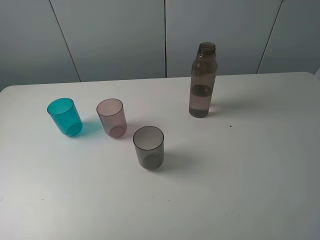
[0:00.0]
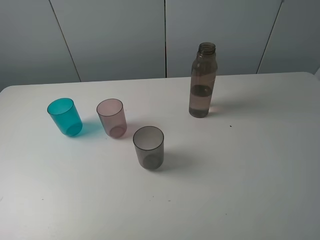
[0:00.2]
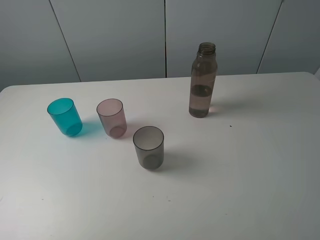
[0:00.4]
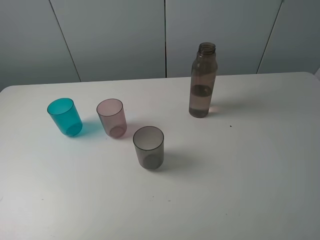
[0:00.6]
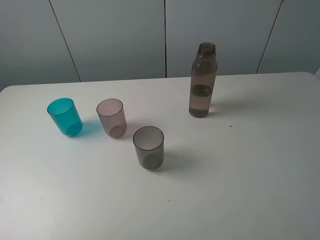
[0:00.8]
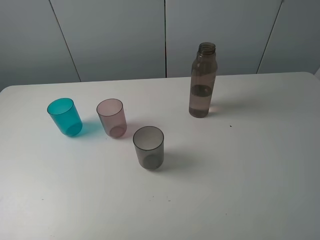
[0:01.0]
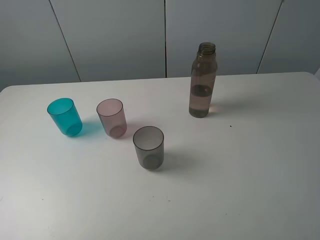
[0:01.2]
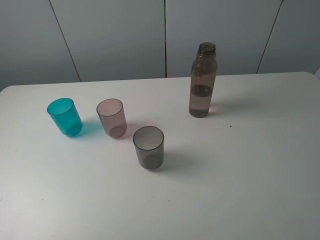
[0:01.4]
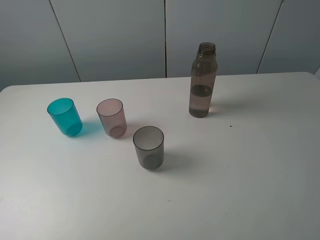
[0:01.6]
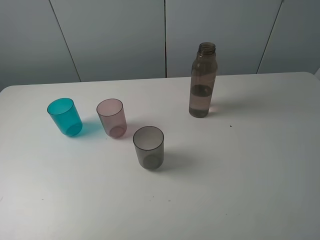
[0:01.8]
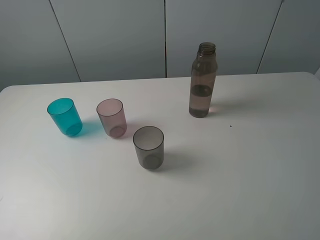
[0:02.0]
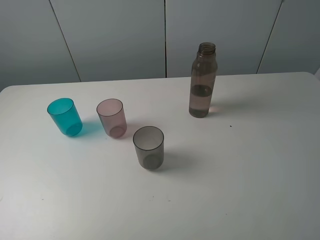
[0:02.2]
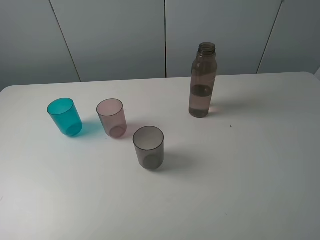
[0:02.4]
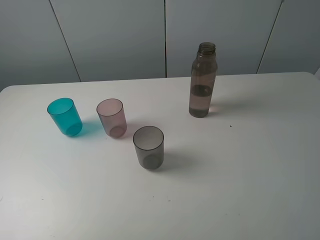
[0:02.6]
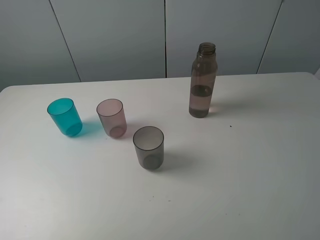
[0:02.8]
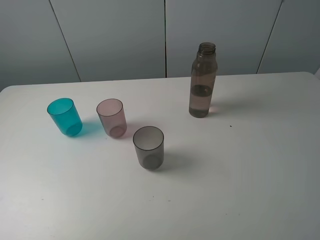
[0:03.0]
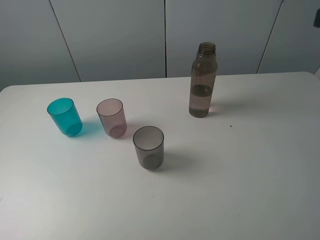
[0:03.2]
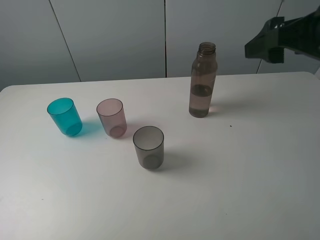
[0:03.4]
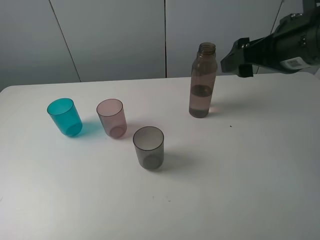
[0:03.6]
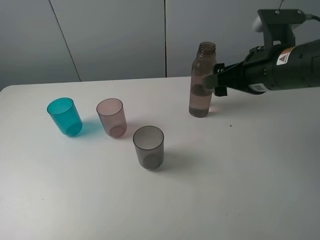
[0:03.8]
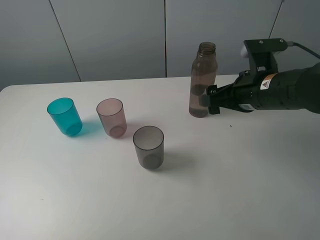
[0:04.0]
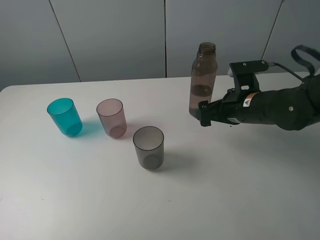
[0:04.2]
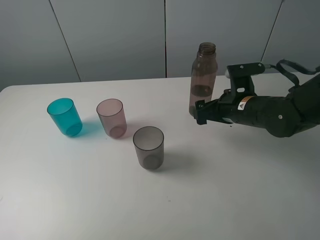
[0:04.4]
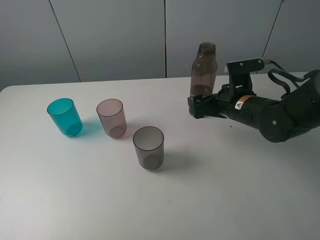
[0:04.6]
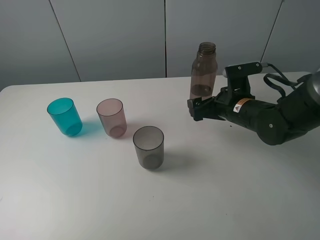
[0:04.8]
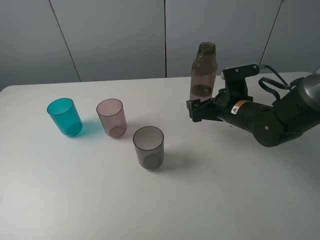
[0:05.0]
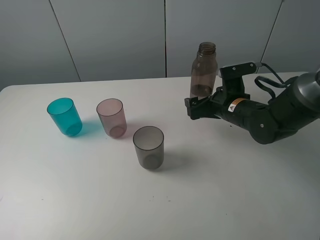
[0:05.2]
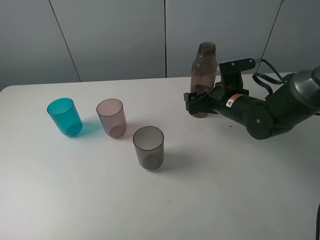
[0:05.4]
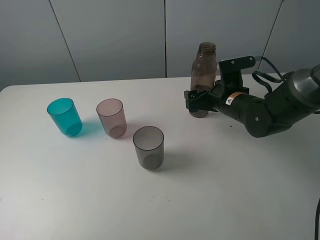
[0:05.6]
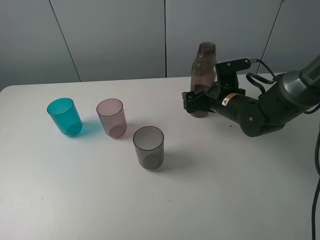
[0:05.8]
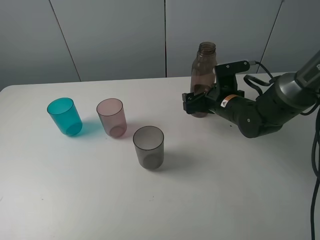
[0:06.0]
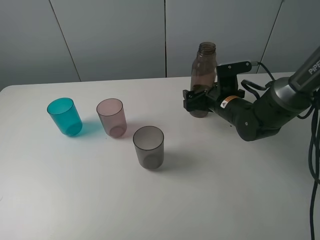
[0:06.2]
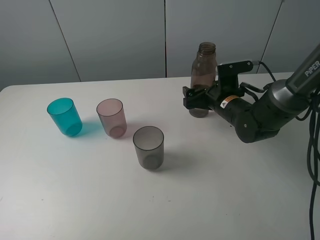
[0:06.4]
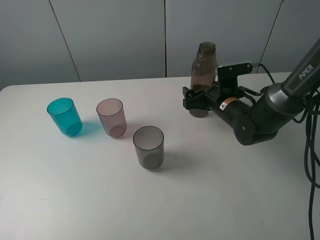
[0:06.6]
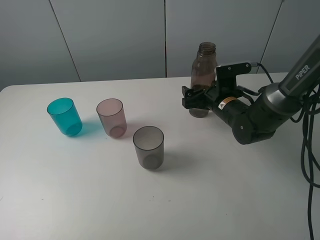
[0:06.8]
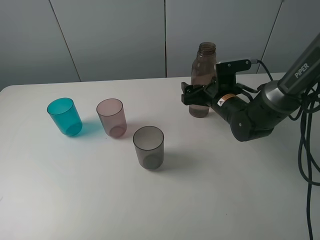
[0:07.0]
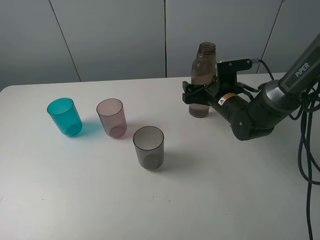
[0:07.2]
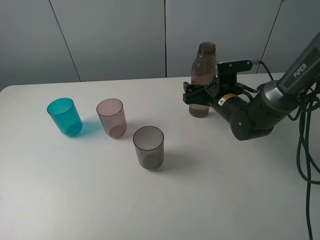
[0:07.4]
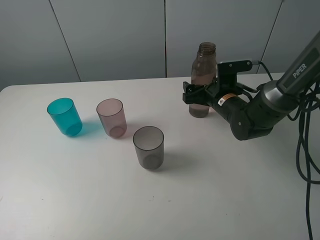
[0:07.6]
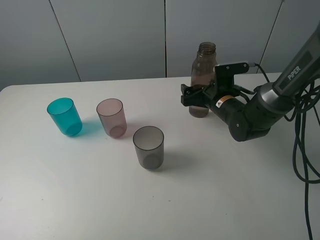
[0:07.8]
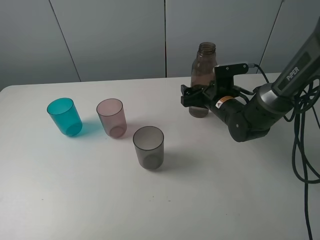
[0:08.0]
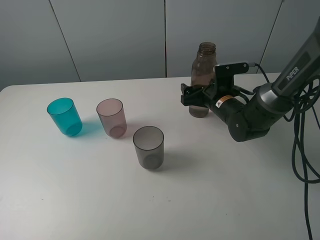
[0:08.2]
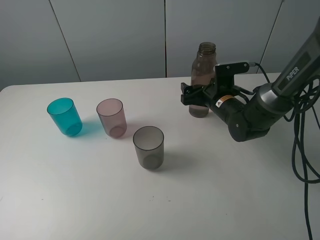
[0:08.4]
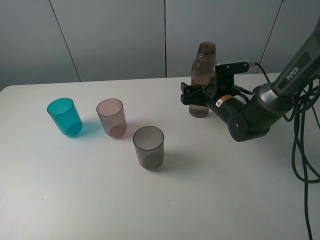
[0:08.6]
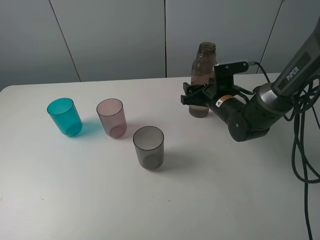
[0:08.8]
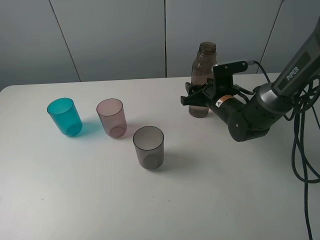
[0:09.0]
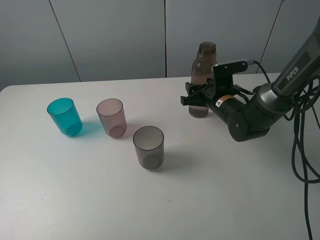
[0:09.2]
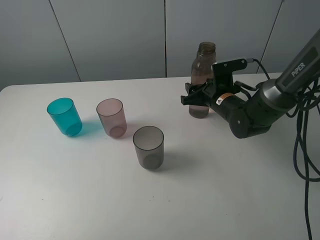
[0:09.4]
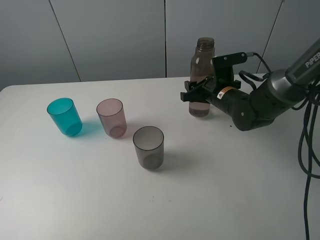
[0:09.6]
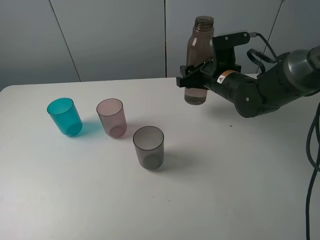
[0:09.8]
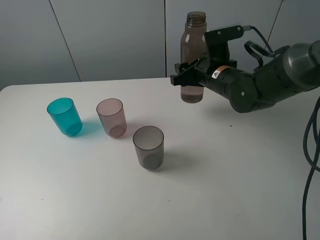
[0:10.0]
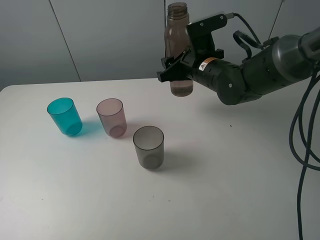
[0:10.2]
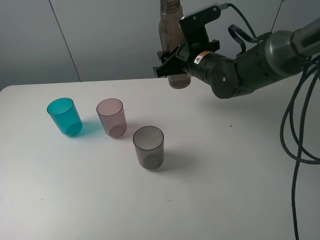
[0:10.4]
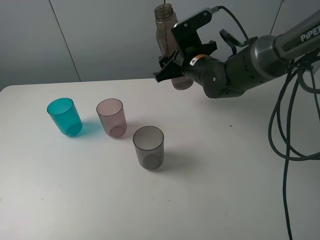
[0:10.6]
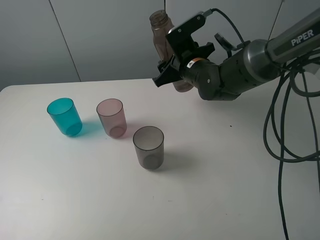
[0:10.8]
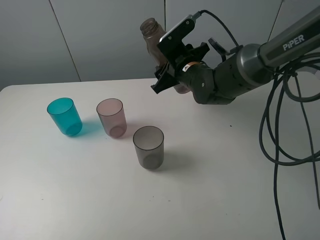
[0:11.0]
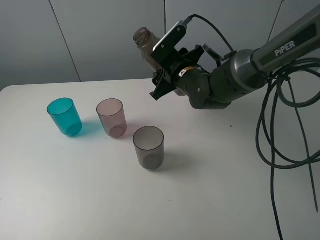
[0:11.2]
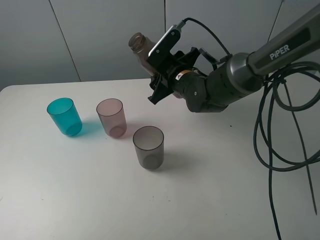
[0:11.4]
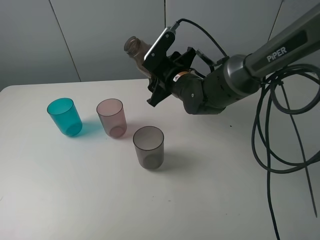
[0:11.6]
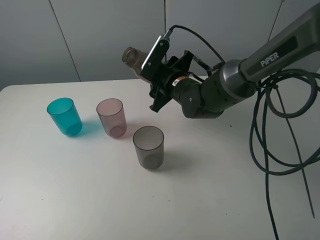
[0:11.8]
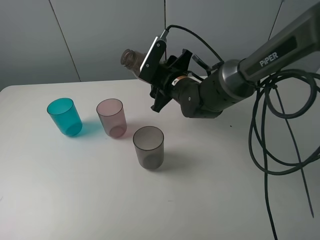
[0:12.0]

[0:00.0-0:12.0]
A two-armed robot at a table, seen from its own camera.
Task of the whole recording: pick up the bottle filled with water and pour water into the middle cup of the three cups.
Step, 0:00.0 to 0:08.8: Grasp the brown bottle with the right gripper.
0:00.0 to 0:01.6: Neither gripper changes place.
0:03.0 to 0:04.4: The right gripper goes about 30 cm downward, forward and to the left.
0:04.4 to 0:06.0: The right gripper moves about 5 cm.
0:06.0 to 0:07.6: The grippers stay close to where they were, moving slightly.
0:07.6 to 0:09.0: The right gripper closes.
0:09.0 to 0:10.4: The right gripper travels upward and to the left by about 10 cm.
0:10.4 to 0:12.0: The right gripper changes place by roughly 5 cm.

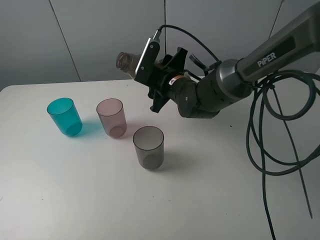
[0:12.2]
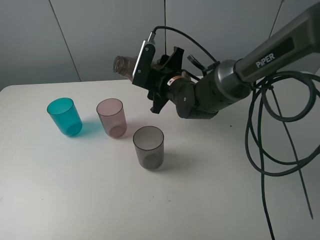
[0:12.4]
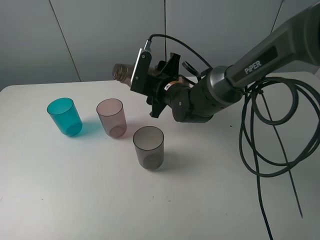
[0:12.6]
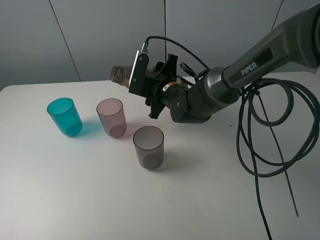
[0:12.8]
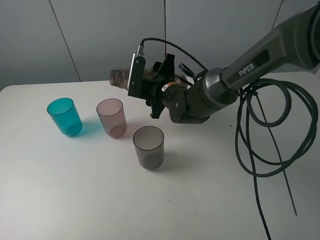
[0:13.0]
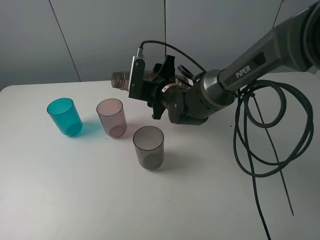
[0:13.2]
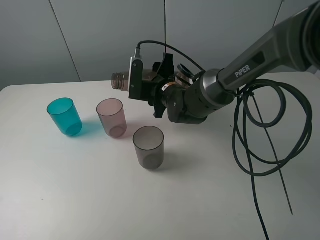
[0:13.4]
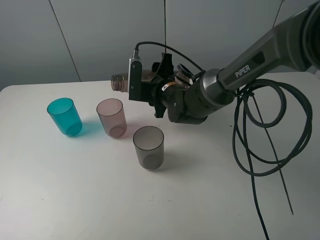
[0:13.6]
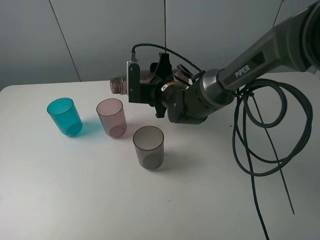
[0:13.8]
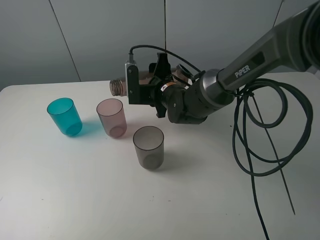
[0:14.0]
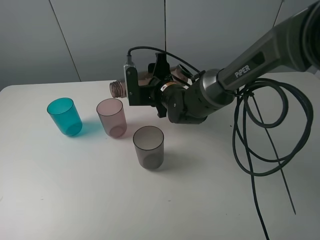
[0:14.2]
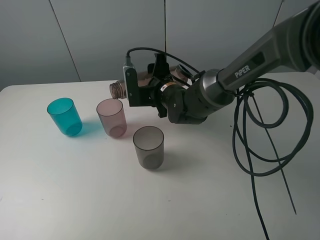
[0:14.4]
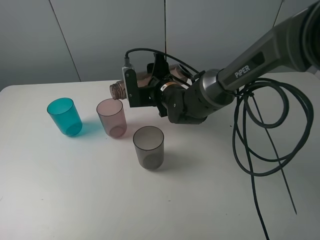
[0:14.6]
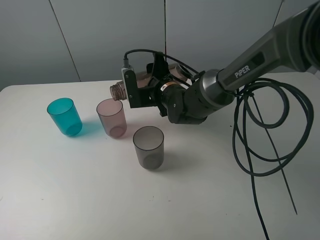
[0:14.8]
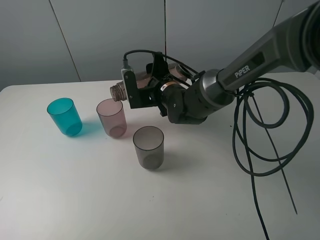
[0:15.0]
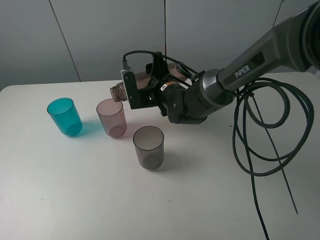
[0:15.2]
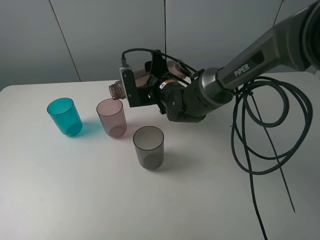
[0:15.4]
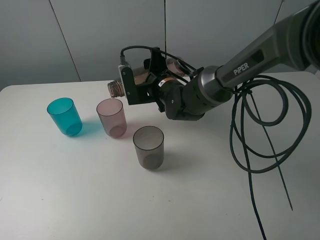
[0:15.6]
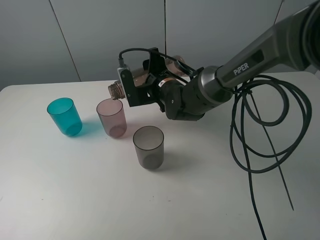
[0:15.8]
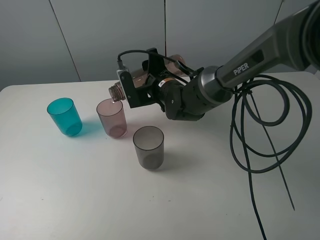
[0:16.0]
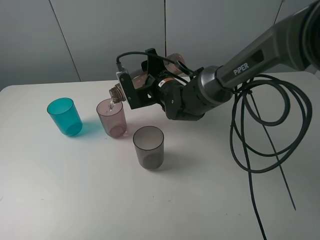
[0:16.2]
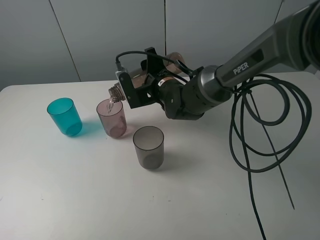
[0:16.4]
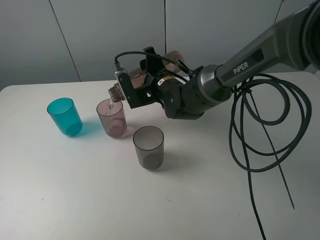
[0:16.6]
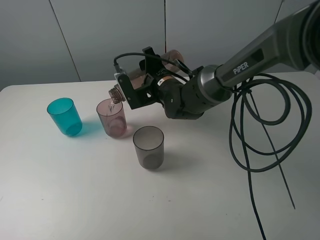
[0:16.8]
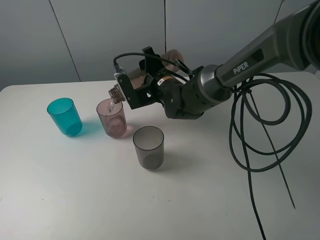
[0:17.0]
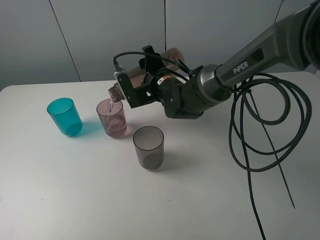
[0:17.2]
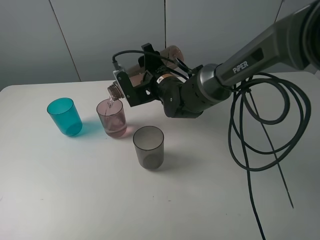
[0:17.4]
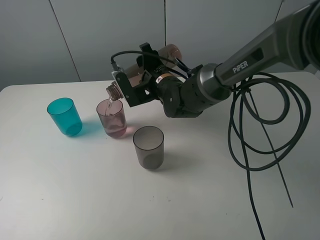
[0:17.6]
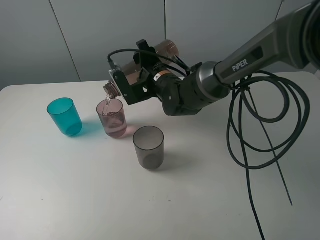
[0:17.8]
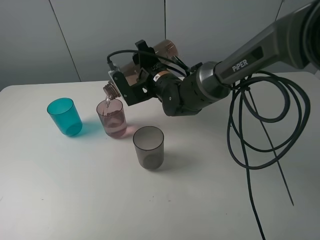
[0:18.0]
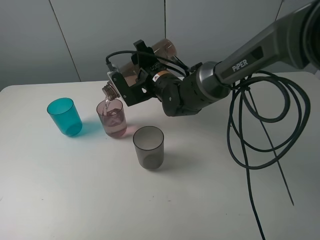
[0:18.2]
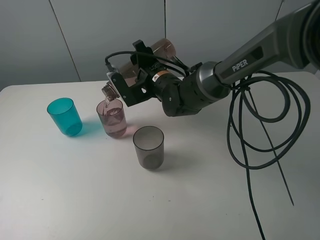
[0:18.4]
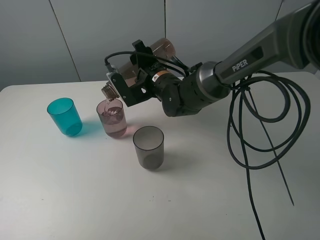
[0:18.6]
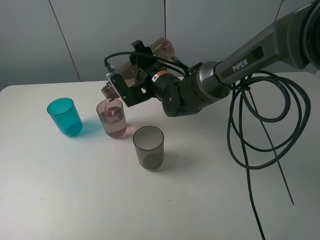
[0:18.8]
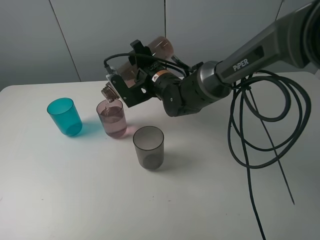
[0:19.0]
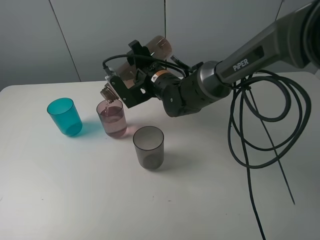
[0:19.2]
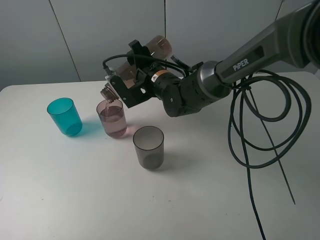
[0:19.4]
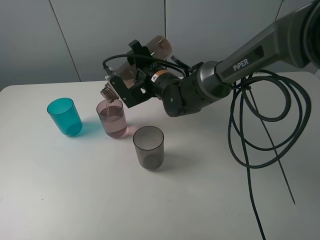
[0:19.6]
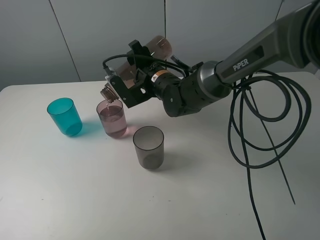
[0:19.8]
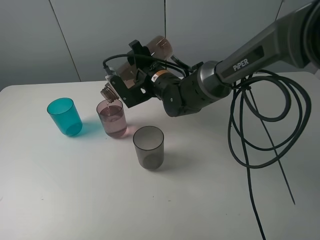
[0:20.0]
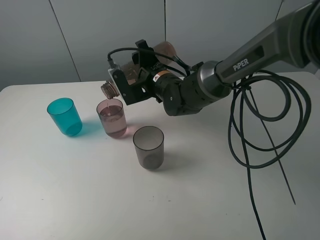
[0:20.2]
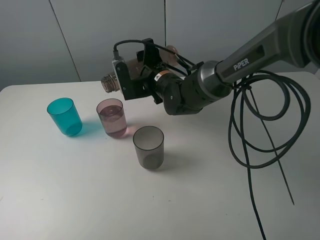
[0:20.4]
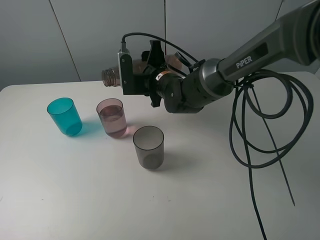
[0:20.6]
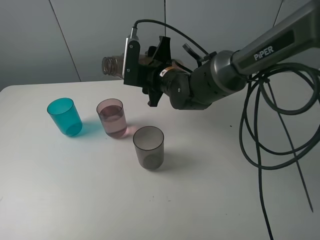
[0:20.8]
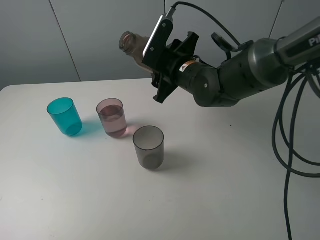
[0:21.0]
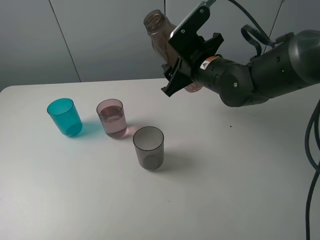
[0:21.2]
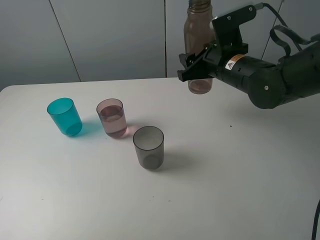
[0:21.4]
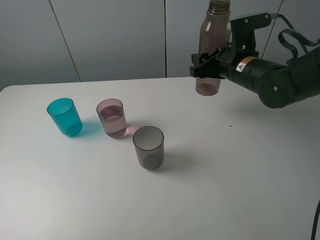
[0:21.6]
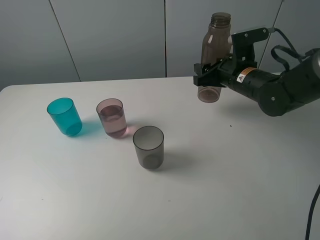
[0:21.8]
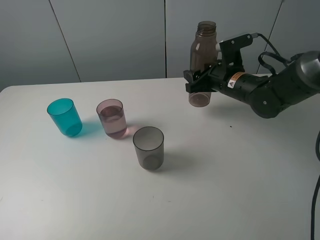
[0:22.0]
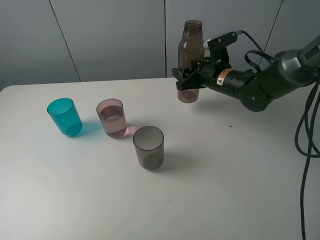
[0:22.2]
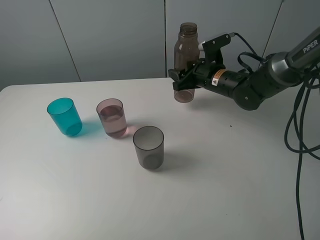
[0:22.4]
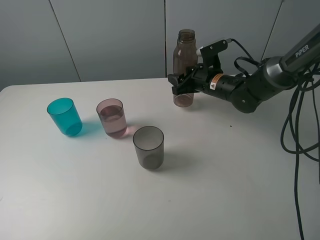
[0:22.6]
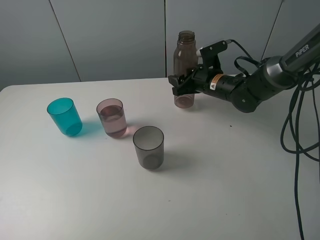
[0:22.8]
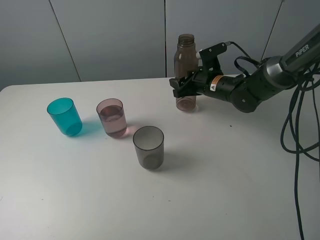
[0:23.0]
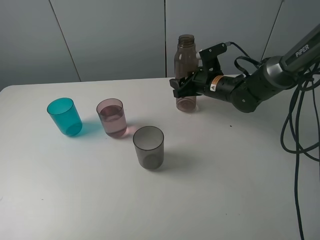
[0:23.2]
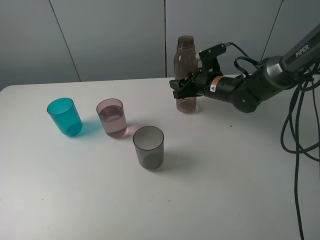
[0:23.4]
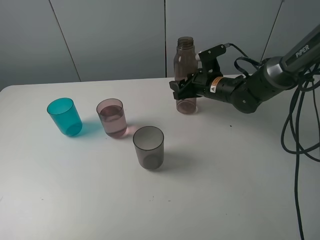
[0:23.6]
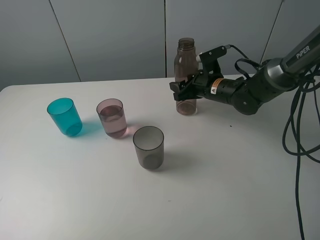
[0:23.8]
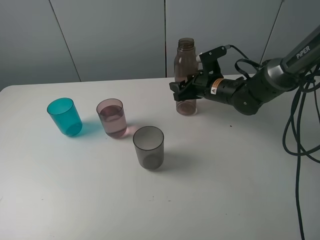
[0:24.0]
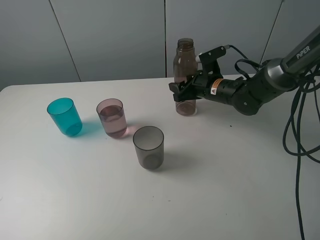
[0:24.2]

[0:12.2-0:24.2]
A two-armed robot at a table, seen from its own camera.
Task of the whole recording: pick up the bottle filled with water and pour water into the middle cup of the three cups.
Step, 0:12.2 to 0:15.8: Pour water from transparent bottle to red cup with the right gripper.
0:13.8 to 0:15.2: The grippers stay close to where they were, moving slightly.
0:15.2 to 0:18.2: The grippers make only small movements.
0:18.2 to 0:19.8: The grippers make only small movements.
0:19.8 to 0:21.2: The right gripper shifts about 10 cm to the right and upward.
0:21.2 to 0:22.6: The right gripper goes some 10 cm downward and forward.
0:22.6 to 0:24.2: The grippers stay close to where they were, moving slightly.
